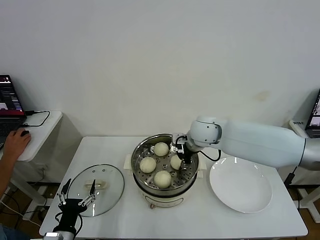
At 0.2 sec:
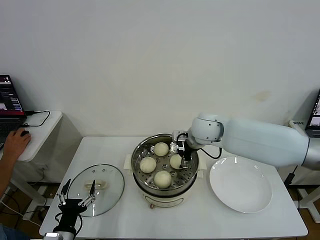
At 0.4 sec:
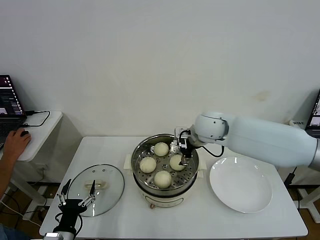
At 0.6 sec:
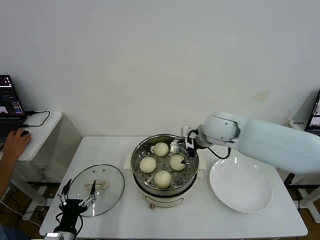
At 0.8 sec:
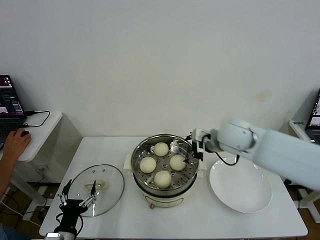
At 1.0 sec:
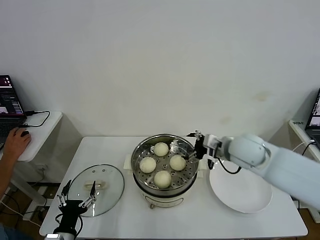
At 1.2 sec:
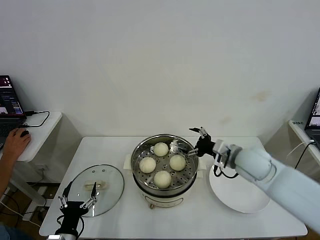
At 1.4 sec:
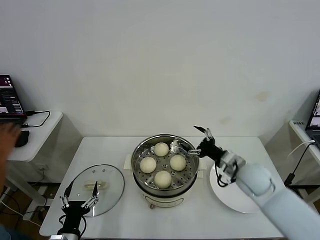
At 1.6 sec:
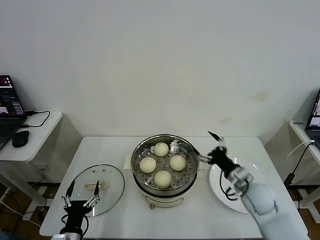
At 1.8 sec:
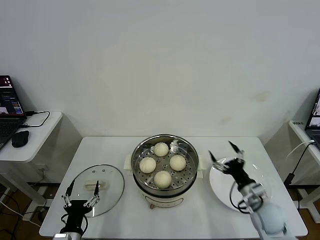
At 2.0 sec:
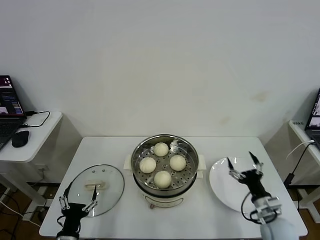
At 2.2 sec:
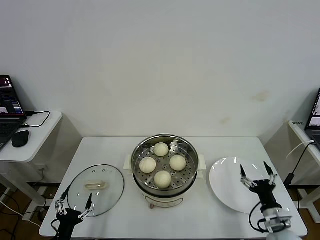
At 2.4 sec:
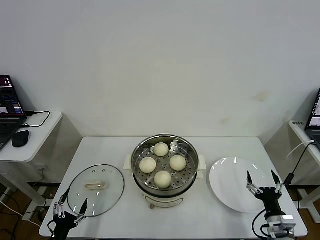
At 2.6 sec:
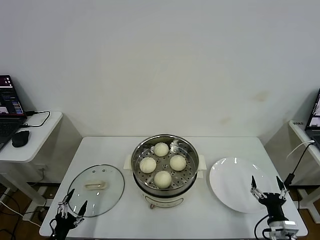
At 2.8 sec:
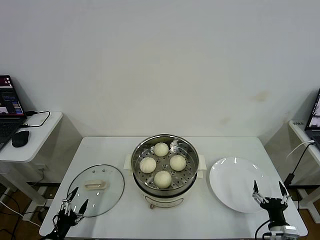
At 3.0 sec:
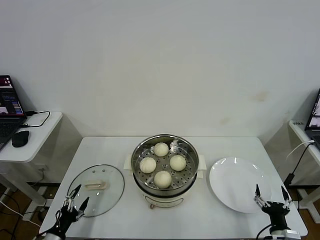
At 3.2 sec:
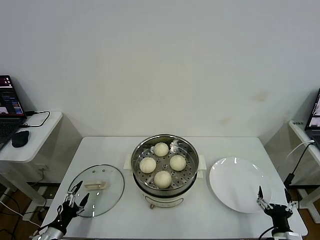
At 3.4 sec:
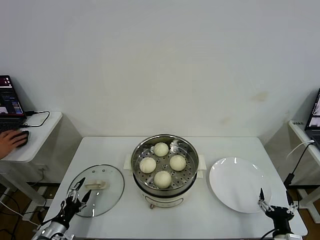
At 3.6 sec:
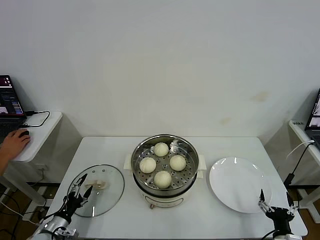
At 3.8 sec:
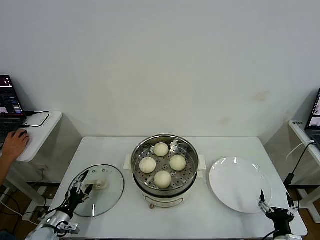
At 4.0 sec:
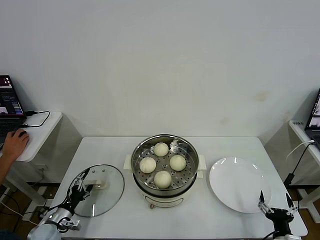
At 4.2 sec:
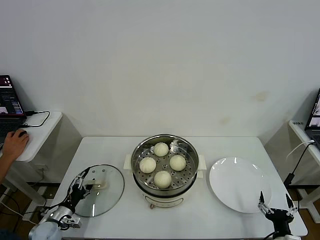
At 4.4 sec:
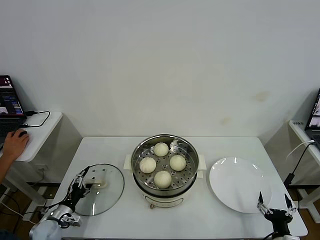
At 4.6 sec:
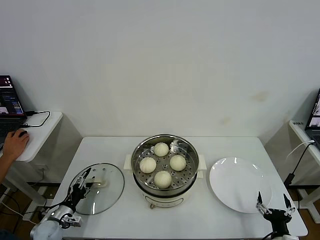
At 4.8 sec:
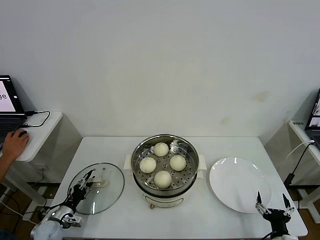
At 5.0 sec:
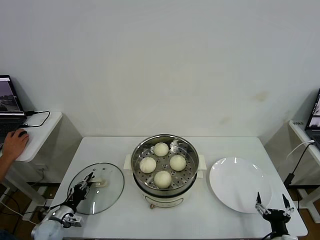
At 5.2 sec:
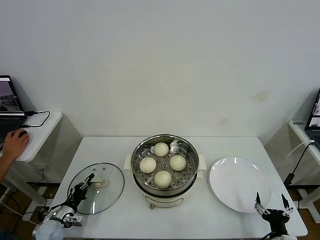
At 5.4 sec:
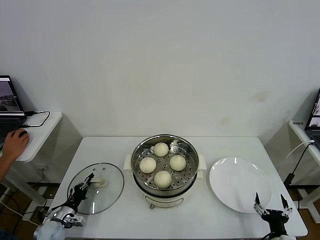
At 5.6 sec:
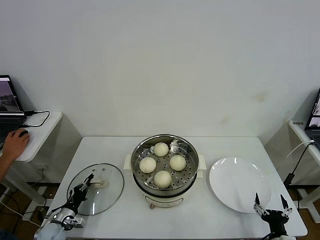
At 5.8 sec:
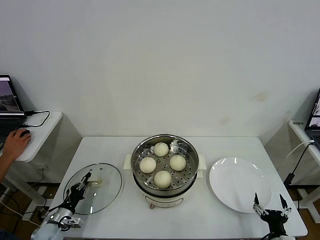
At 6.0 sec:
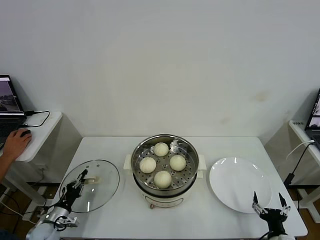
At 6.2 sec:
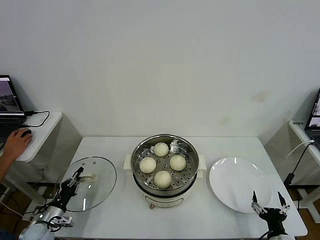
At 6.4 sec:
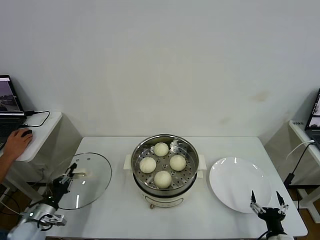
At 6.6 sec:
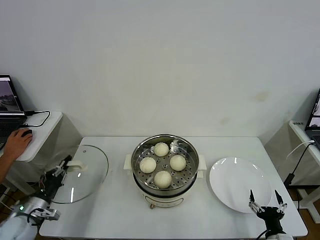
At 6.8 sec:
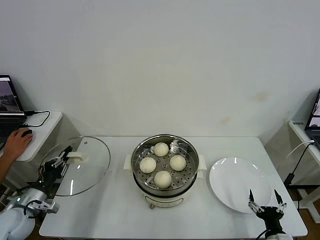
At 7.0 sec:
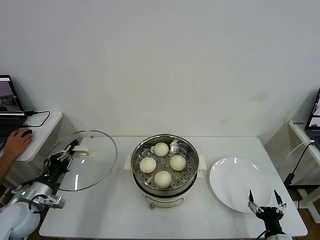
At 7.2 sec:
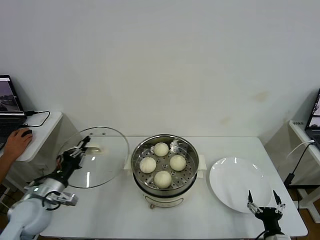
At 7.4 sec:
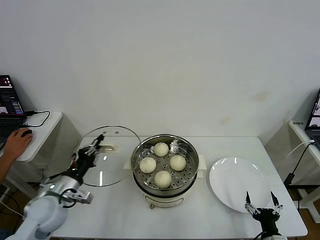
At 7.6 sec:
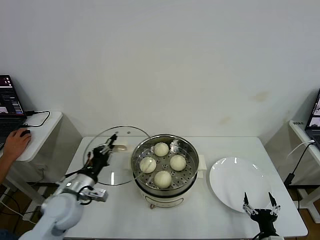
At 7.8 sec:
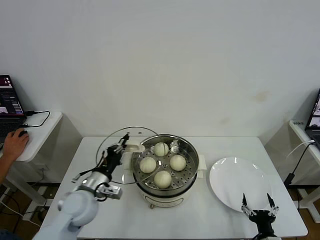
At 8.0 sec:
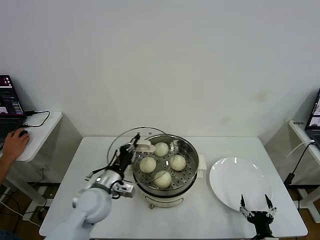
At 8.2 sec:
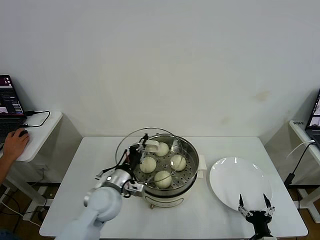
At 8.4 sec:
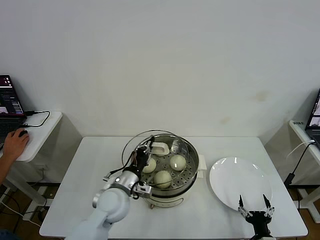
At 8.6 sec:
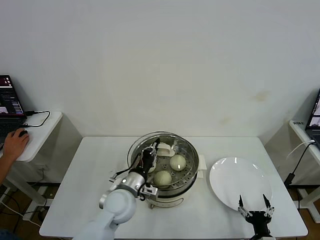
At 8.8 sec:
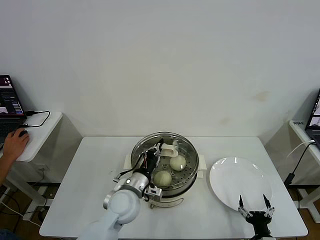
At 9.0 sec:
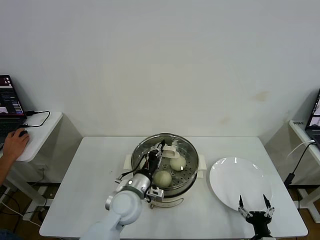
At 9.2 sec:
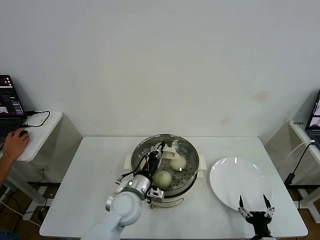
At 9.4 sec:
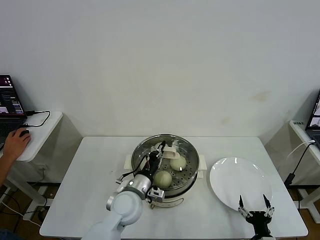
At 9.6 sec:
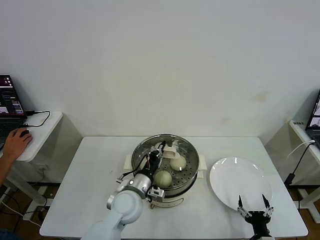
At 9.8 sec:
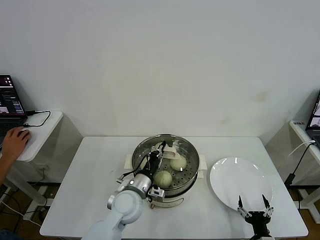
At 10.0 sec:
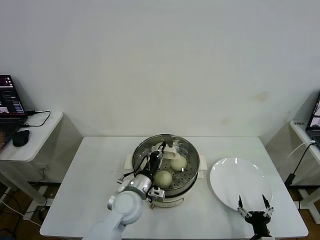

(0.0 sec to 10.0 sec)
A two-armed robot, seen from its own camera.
Task of the whole recording: take steamed baozi put them in steamer then cover it.
Step, 0.6 sec - 5.6 sec: Grasp the pot lid with left gripper.
0.0 sec - 1.4 sec: The right gripper heads to the right, backward and downward, covering some 20 cm, and opens up.
1.4 sec - 2.8 sec: The left gripper goes approximately 10 cm to the left and downward; the right gripper moves backward, downward and to the right, roughly 30 cm.
2.8 sec - 4.2 sec: The left gripper heads forward, covering some 15 cm.
4.2 sec - 5.8 sec: The left gripper closes.
5.8 sec - 7.2 sec: The left gripper is displaced upward by roughly 20 cm.
7.2 sec - 8.6 sec: The left gripper goes about 25 cm to the right.
8.6 sec - 10.0 sec: The grippers stay close to where they were, moving slightly.

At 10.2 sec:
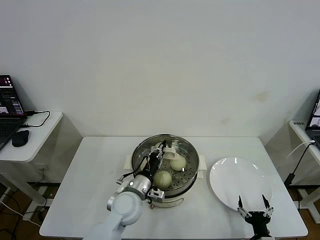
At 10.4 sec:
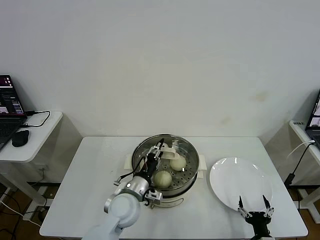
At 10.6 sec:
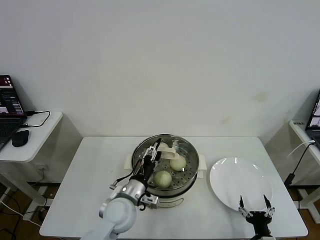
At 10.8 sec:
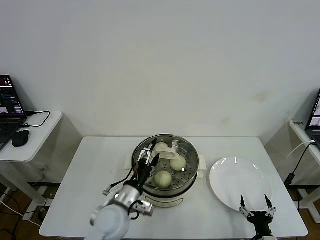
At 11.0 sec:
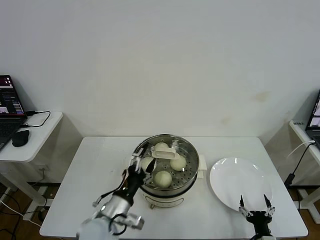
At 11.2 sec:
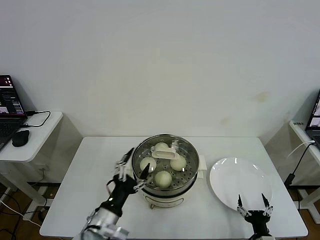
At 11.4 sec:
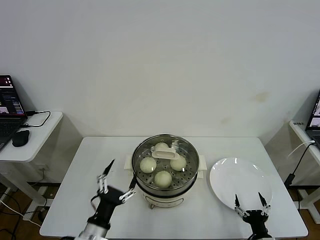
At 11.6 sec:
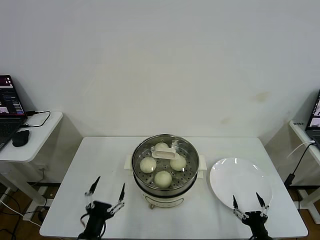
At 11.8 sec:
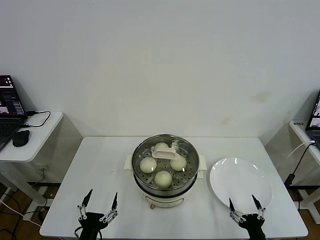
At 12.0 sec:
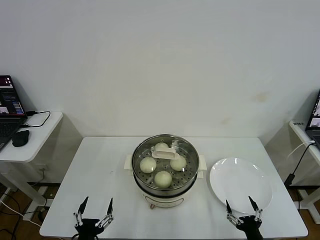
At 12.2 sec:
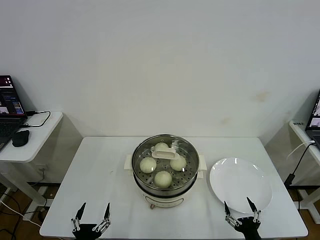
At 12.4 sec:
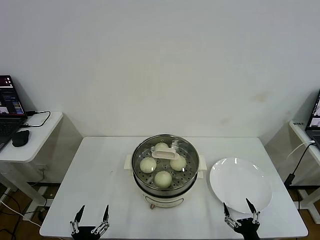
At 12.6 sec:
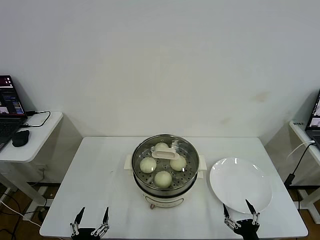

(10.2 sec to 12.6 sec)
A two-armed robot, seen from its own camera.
Task of the whole recording: take steamed baozi put them in steamer then cover it.
10.2 sec - 11.4 sec: The left gripper travels backward and to the left by some 15 cm, and opens up.
11.4 sec - 12.6 sec: The left gripper shifts about 15 cm backward and downward.
